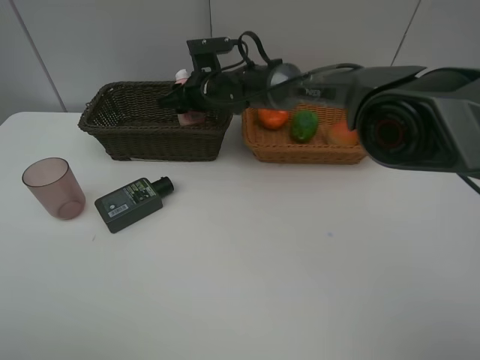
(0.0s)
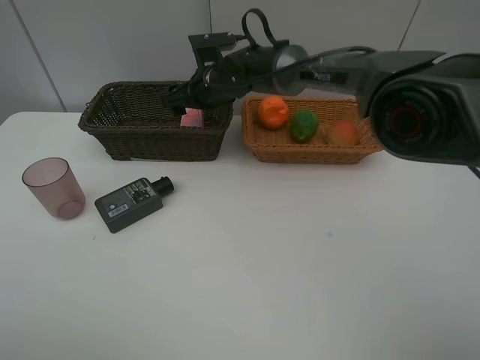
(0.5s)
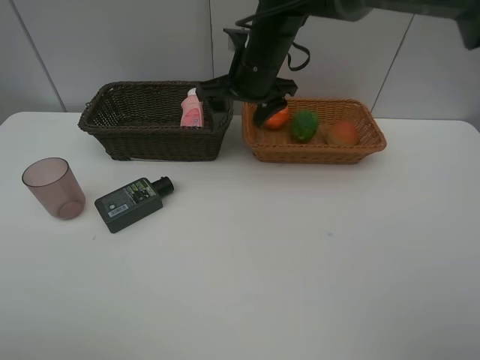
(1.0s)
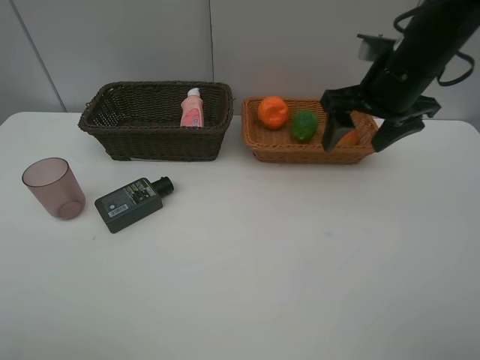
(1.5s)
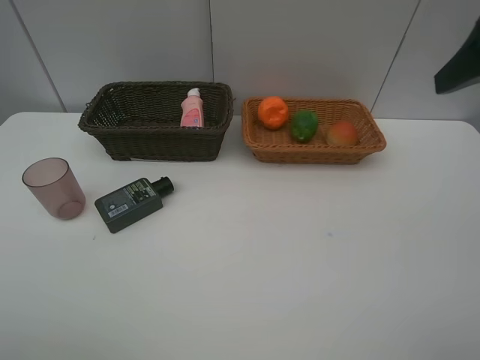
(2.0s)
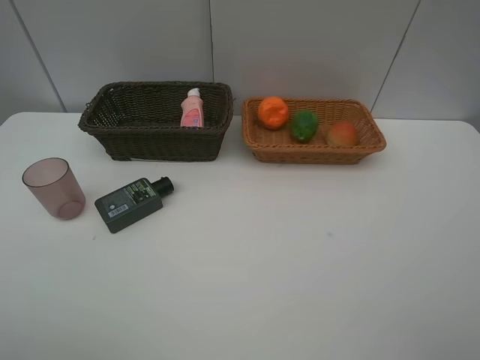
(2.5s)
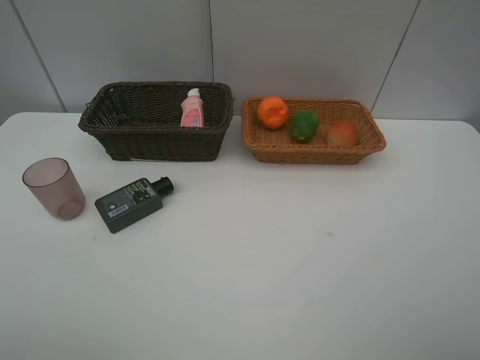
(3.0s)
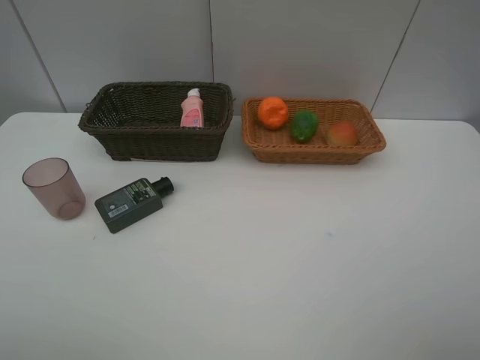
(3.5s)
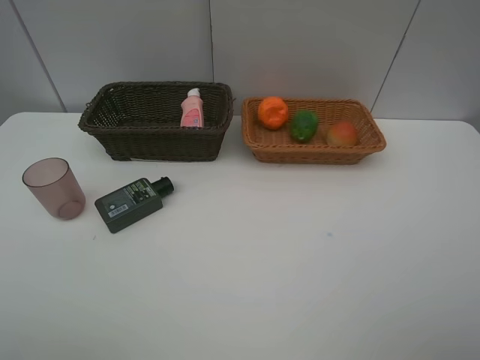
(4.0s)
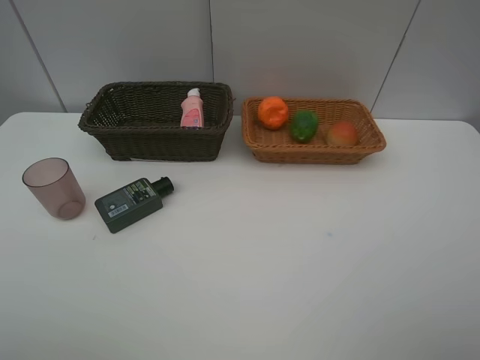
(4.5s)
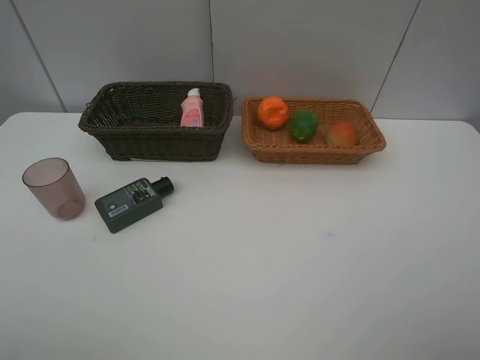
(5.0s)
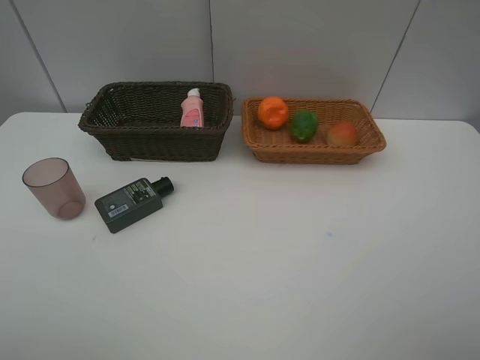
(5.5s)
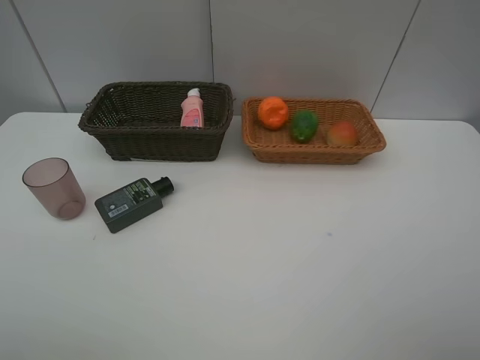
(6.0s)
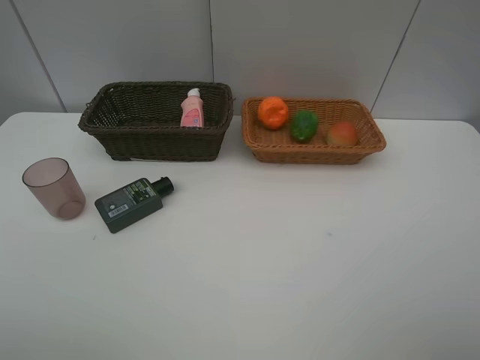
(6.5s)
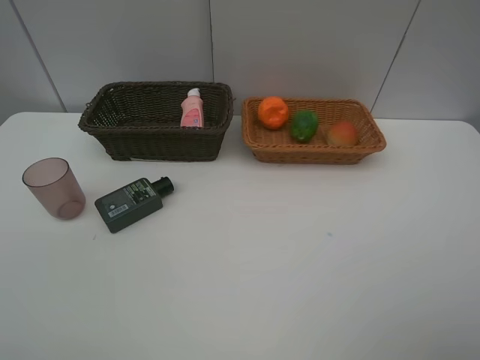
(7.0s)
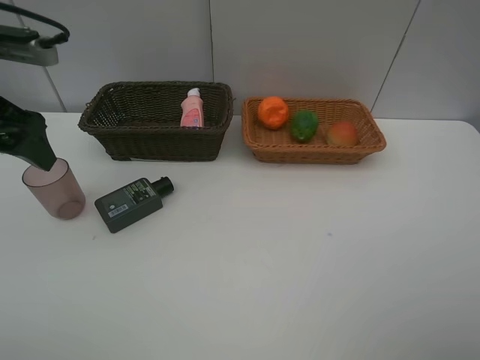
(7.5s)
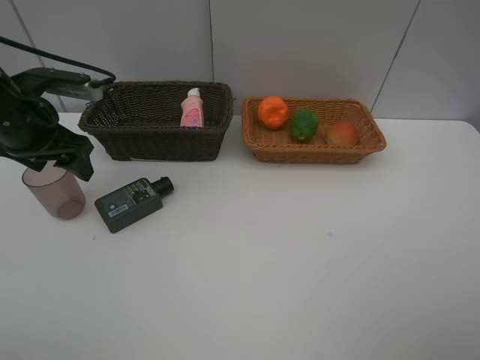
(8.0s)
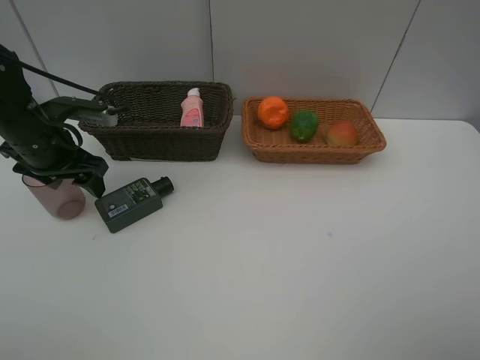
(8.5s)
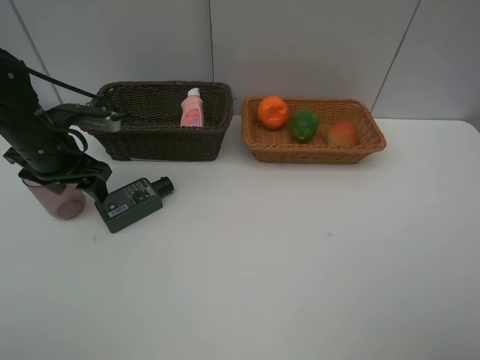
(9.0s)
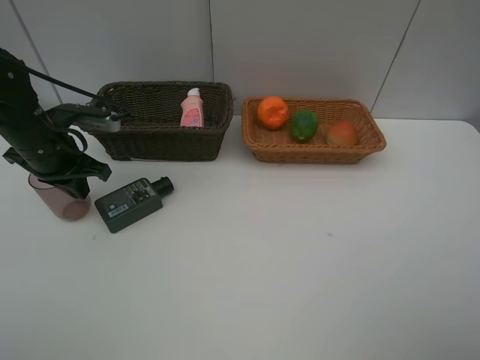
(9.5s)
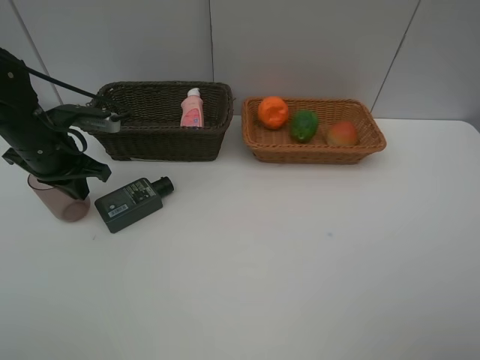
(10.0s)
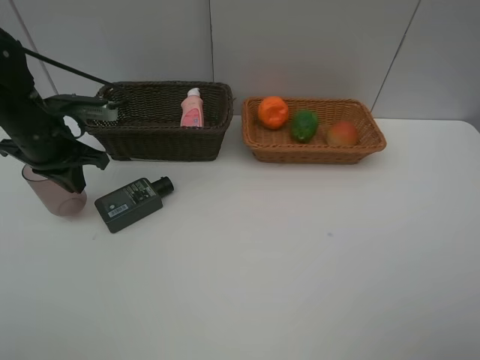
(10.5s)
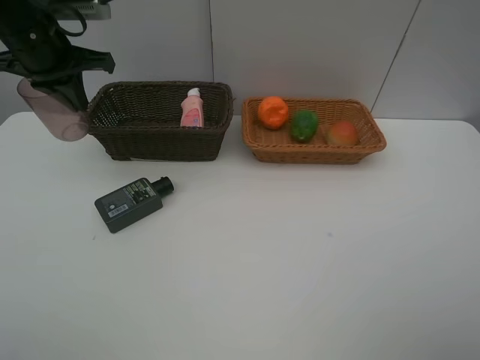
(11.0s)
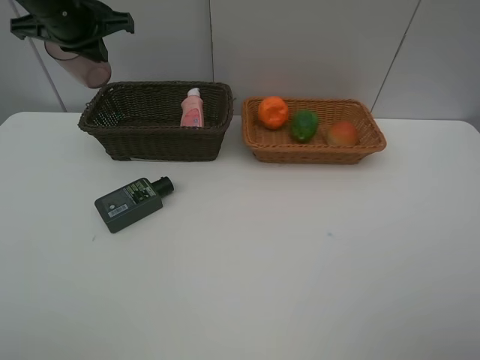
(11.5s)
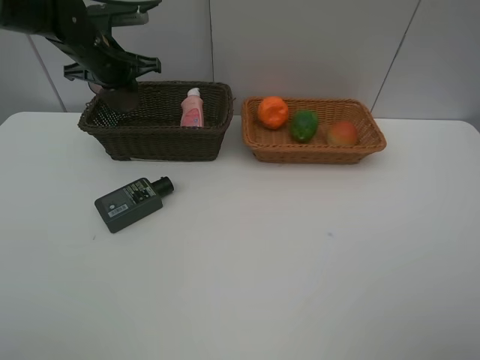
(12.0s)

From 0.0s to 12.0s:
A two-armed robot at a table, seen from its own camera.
Task of the whole recording: place multiple objects separately in different baskets.
From 0.0s to 2.0s: The right gripper goes about 50 cm to the right, backward and upward, and opens up.
From 2.0s to 4.0s: The right gripper is displaced backward and downward by about 20 cm.
From 4.0s to 6.0s: Both grippers stay about where they are.
From 6.0s to 8.0s: The left gripper travels forward by approximately 30 cm.
From 8.0s to 10.0s: The left gripper travels downward by about 5 cm, and closes its fingers.
From 10.0s to 12.0s: The left gripper is displaced forward by some 15 cm.

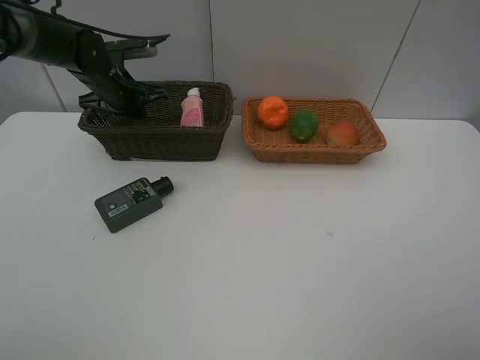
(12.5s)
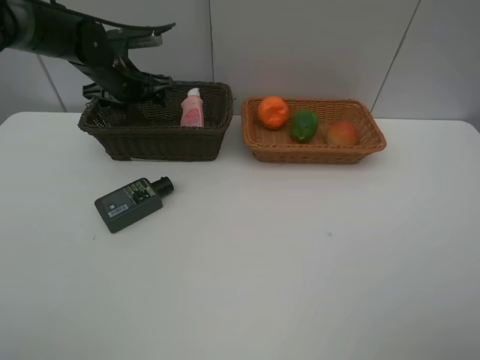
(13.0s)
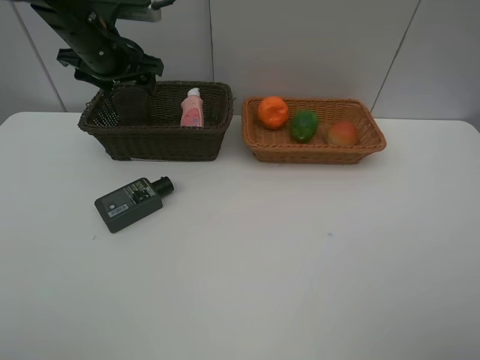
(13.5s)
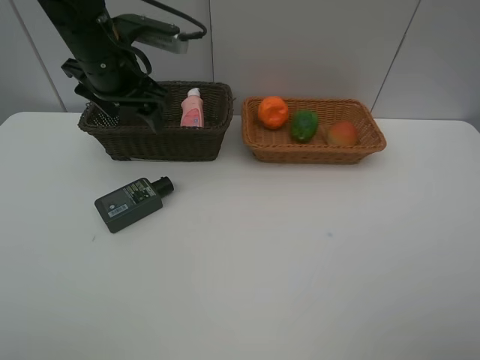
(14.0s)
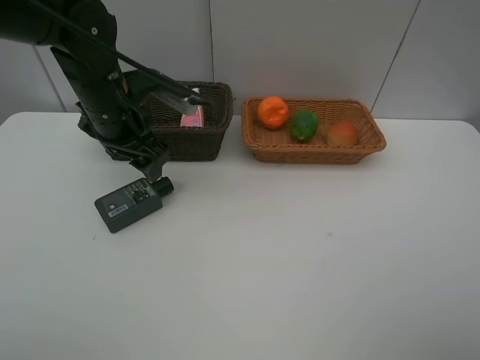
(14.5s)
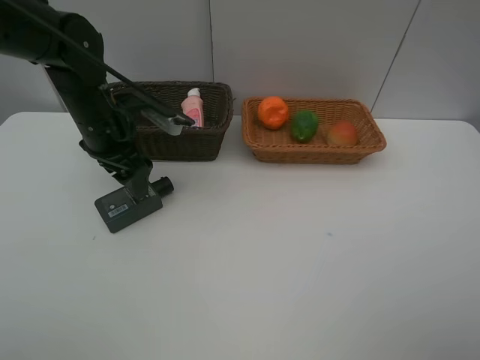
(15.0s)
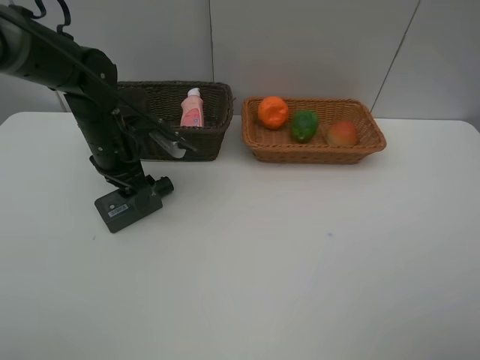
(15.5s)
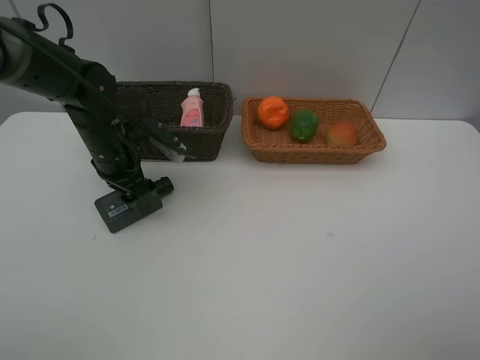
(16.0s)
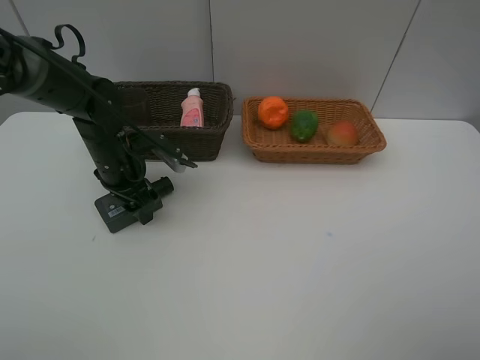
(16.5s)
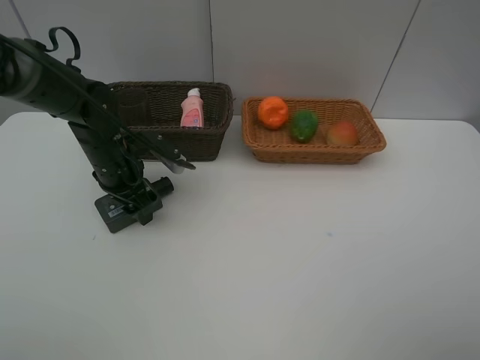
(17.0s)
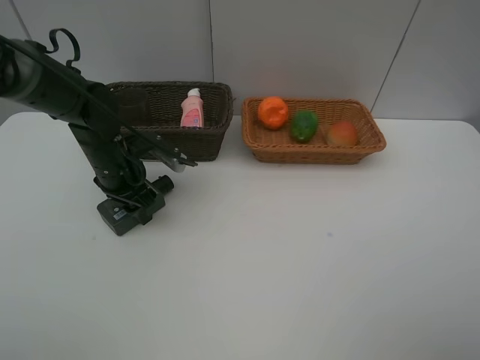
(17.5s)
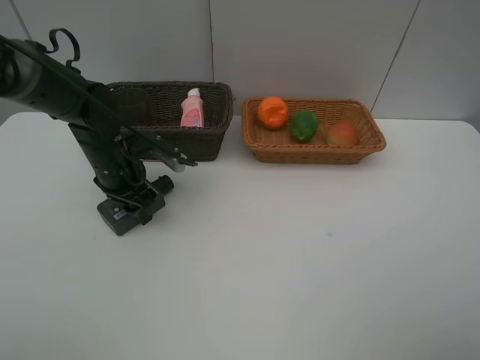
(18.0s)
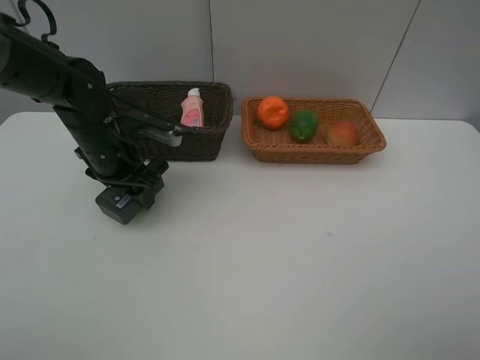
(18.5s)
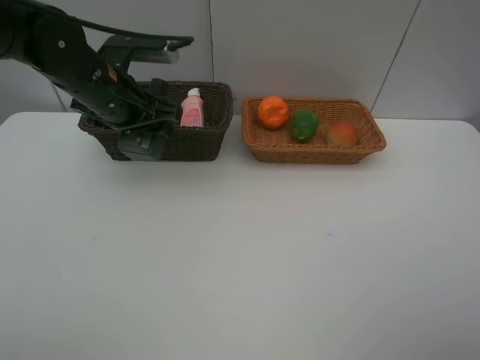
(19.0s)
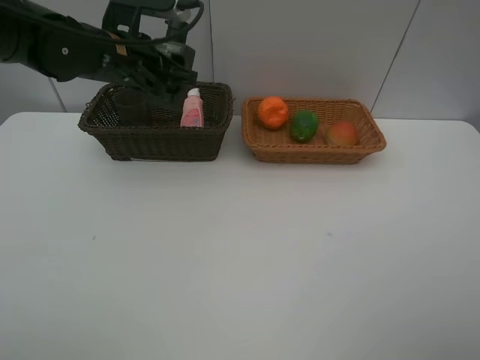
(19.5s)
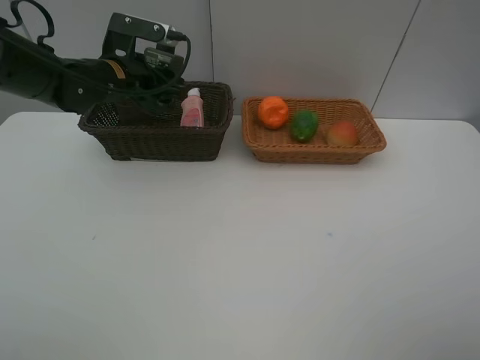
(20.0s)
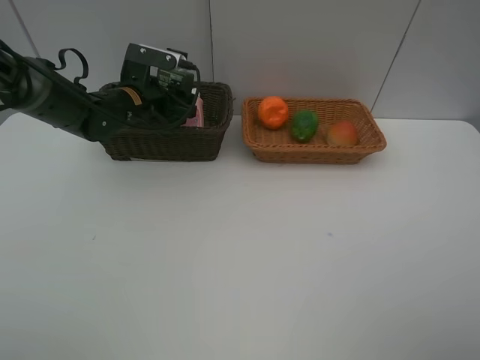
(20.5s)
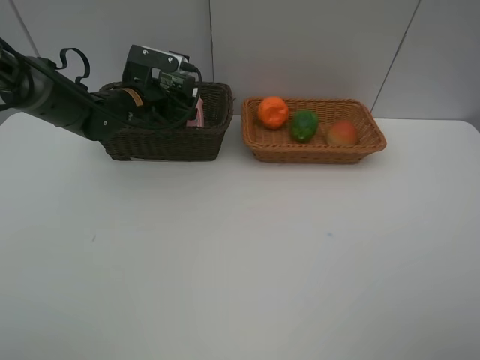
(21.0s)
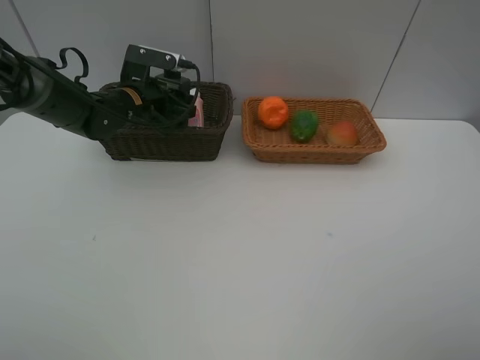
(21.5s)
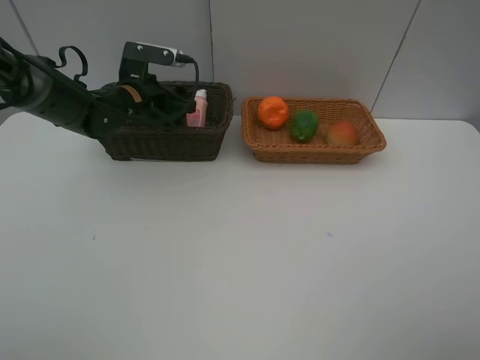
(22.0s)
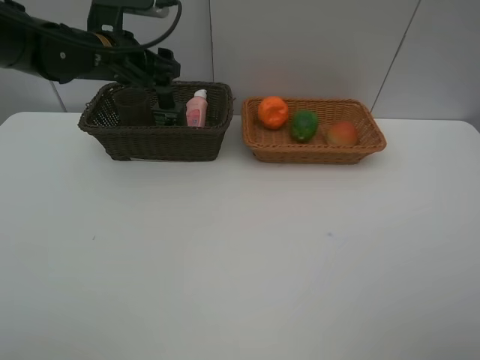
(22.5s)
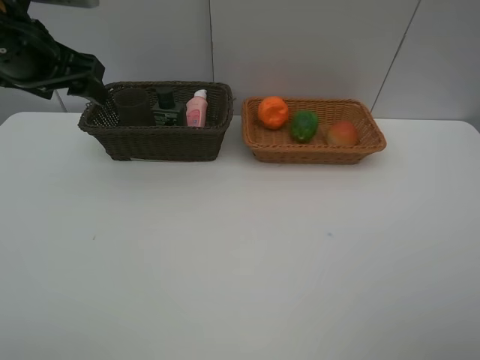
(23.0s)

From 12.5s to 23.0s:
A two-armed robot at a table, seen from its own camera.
Task of the whole recording: place multiple objects separately in different baskets.
From 12.5s to 14.5s: The left gripper heads backward and to the right, covering about 15 cm, and opens its fingers.
From 14.5s to 16.5s: The left gripper heads downward, covering some 10 cm.
From 16.5s to 19.0s: The left gripper shifts approximately 10 cm upward.
From 19.0s to 21.0s: The left gripper heads downward and forward, covering roughly 10 cm.
From 21.0s to 23.0s: The left gripper moves upward, backward and to the left, approximately 20 cm.

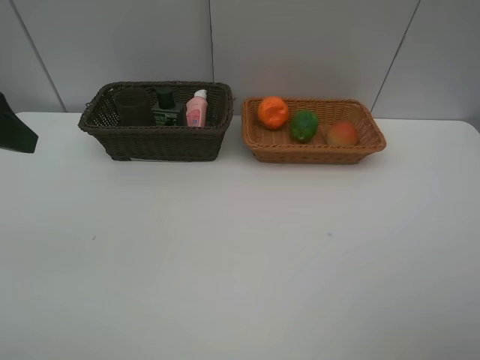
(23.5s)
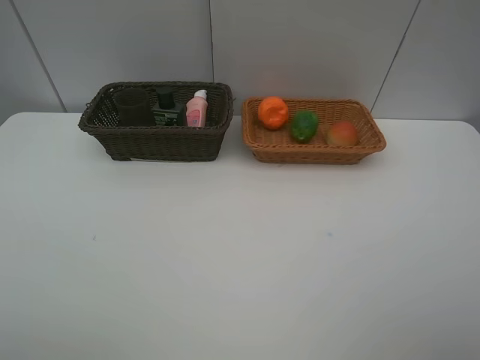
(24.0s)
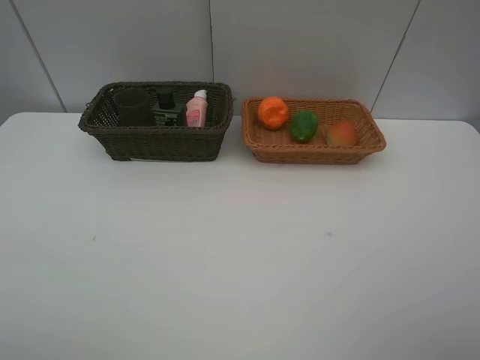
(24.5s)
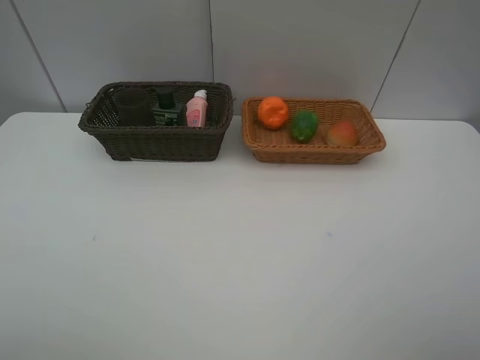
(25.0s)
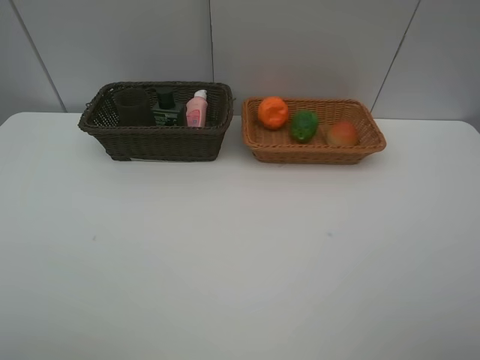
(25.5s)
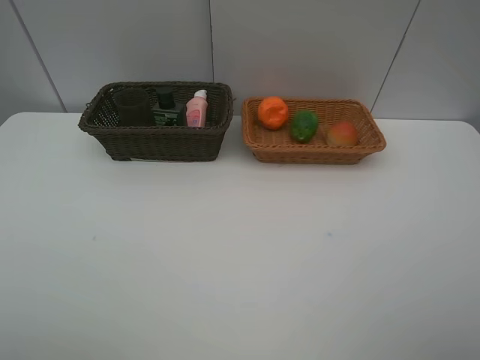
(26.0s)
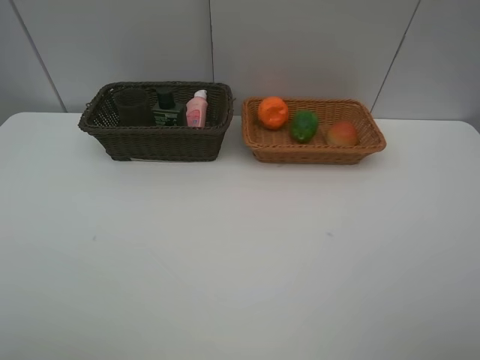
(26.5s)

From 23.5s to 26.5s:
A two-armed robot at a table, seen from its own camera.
Task of the whole recording: place multiple objects separately in different baskets.
From 23.5s to 25.0s: The left gripper goes some 20 cm backward.
From 25.0s to 26.5s: The two grippers keep their place.
